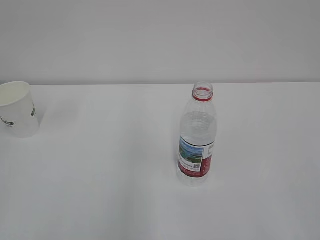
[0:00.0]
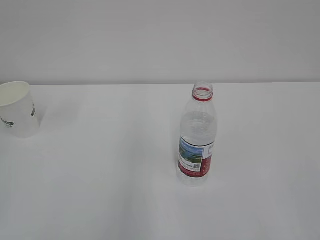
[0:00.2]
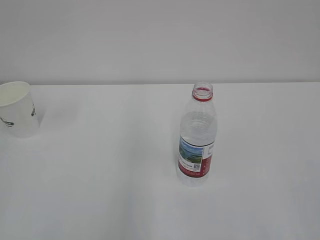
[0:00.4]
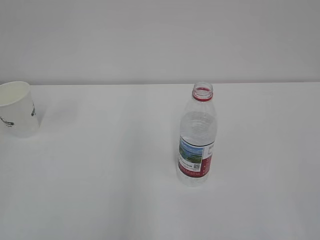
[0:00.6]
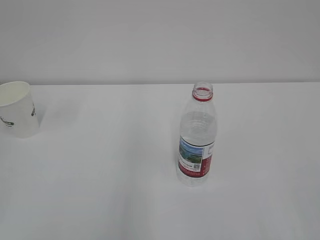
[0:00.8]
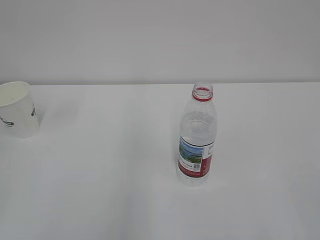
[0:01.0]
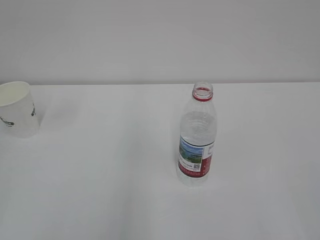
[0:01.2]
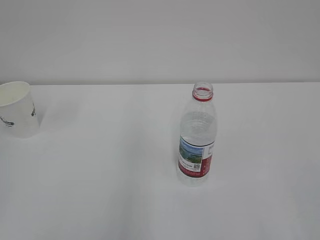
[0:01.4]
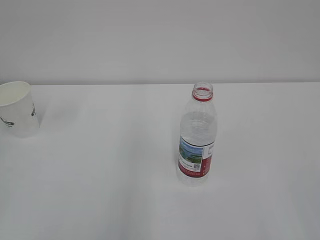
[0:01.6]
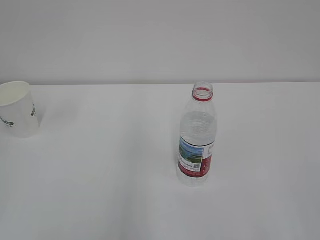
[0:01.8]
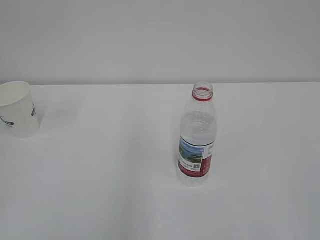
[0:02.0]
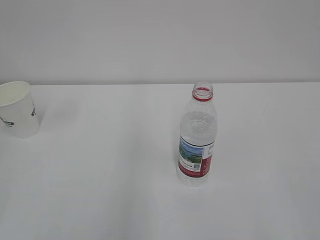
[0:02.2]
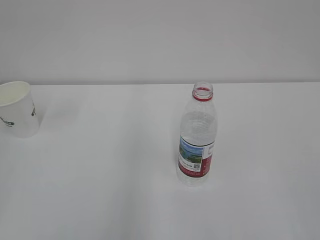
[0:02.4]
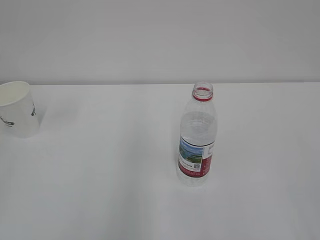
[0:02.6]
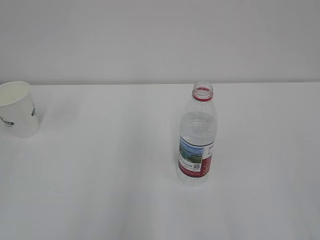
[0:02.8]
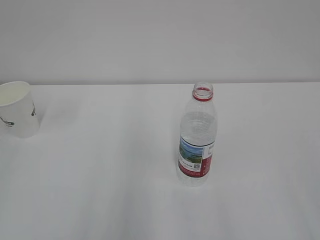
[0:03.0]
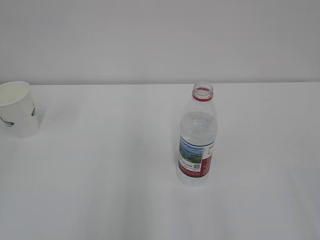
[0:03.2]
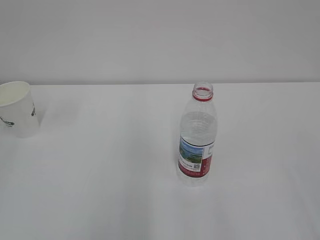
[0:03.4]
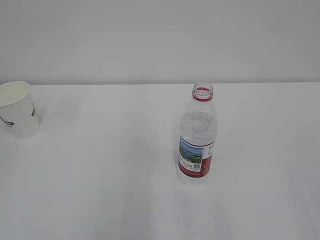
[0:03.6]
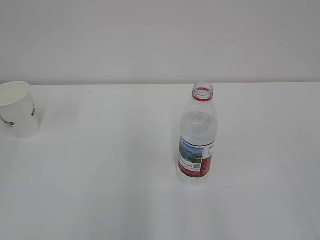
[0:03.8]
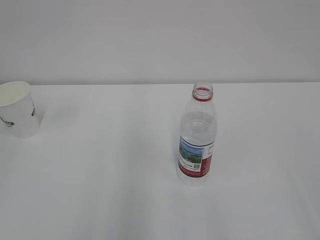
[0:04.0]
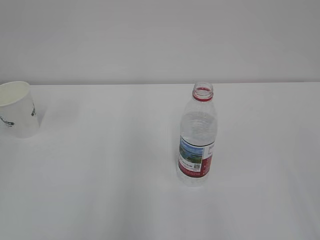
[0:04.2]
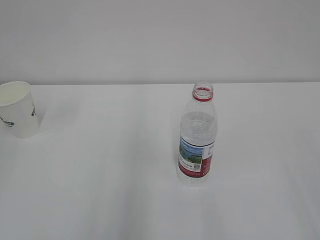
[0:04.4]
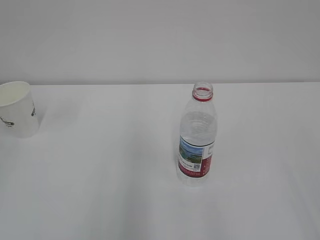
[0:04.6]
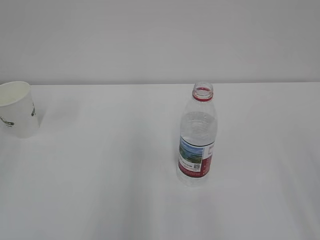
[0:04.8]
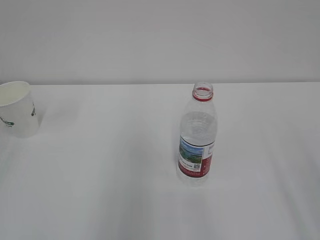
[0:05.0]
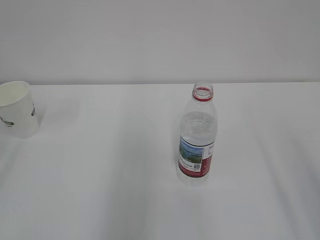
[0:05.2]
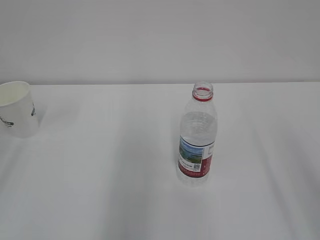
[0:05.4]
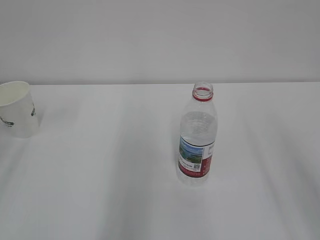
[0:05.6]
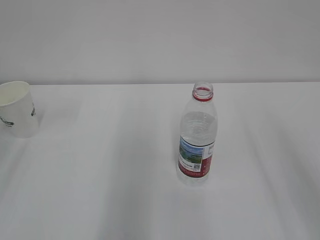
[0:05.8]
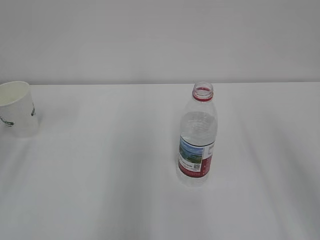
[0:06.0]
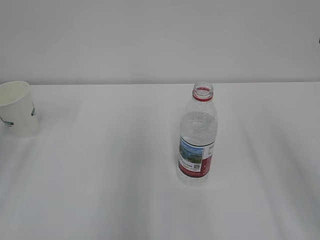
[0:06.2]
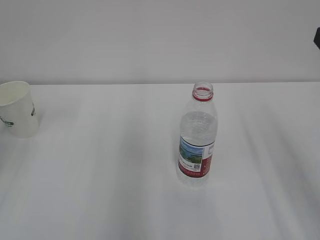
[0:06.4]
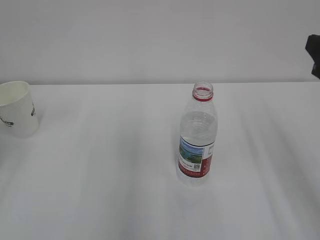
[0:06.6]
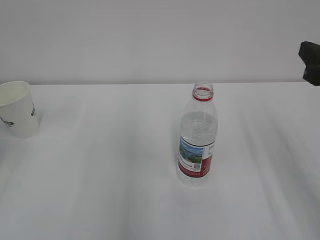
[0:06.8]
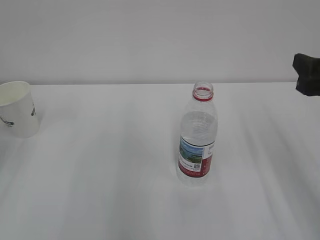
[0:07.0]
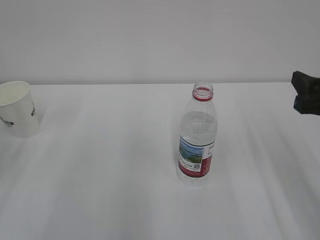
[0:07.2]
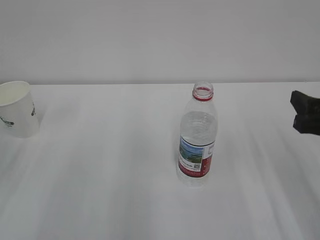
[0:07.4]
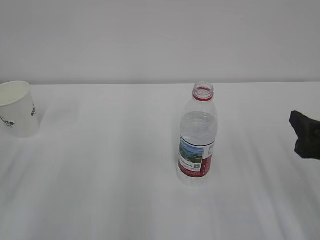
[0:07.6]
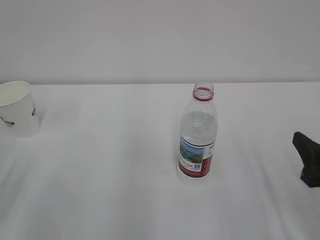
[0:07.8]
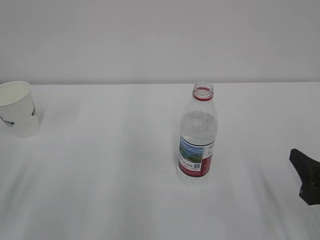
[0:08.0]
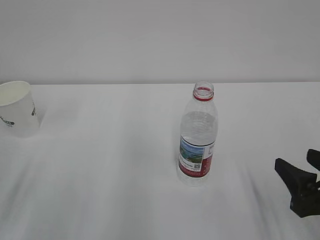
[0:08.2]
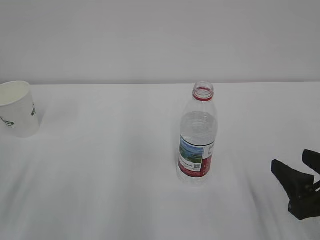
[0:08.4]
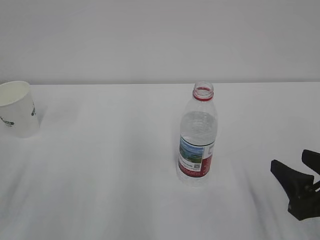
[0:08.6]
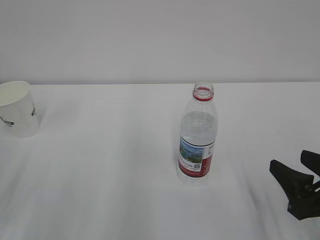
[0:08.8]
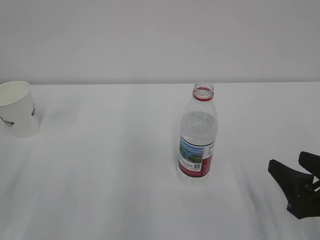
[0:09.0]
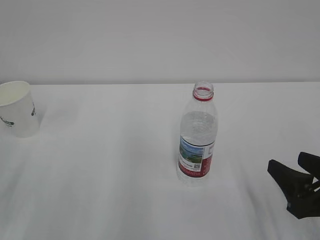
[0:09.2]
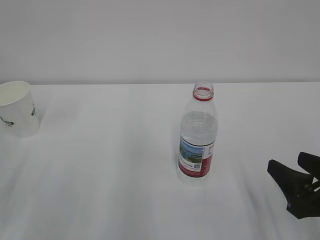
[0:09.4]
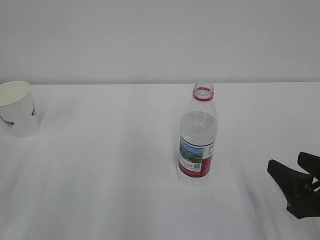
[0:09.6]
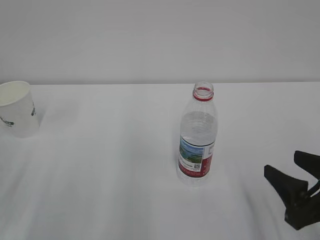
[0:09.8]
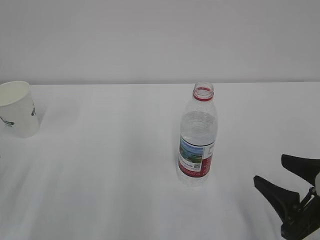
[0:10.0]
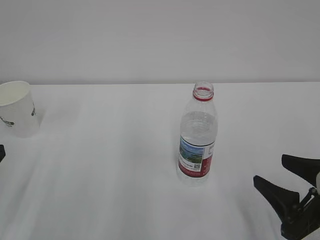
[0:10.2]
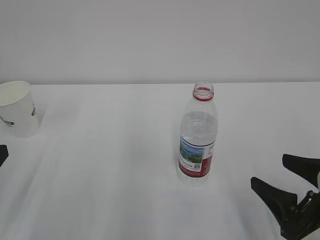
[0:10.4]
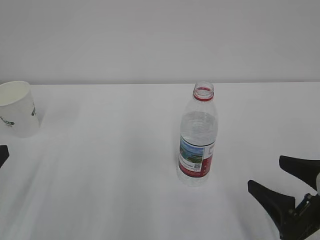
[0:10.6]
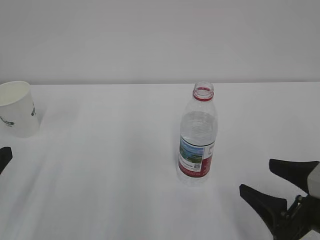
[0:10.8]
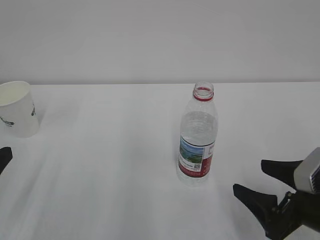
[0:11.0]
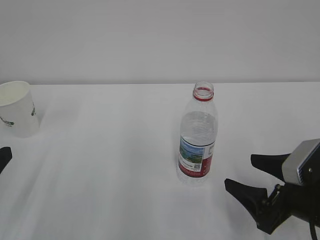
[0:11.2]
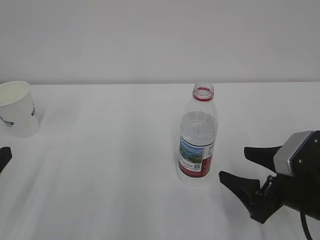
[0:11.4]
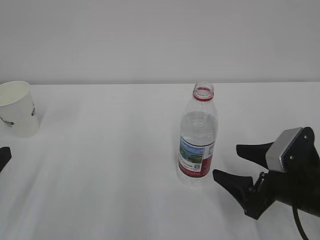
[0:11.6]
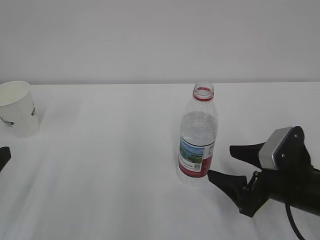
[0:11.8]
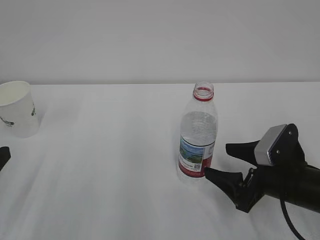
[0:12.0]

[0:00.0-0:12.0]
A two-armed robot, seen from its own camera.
0:06.0 to 0:07.6: The right gripper moves downward, about 15 cm.
0:07.6 to 0:09.0: The right gripper changes place by roughly 5 cm.
0:09.0 to 0:10.4: The right gripper opens its fingers.
0:10.4 to 0:12.0: The left gripper closes its fingers, while the right gripper travels forward by some 10 cm.

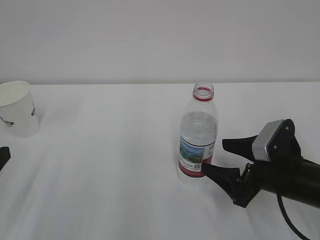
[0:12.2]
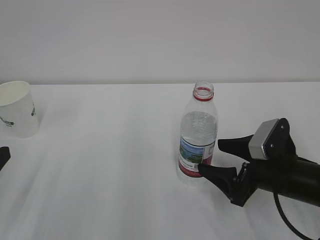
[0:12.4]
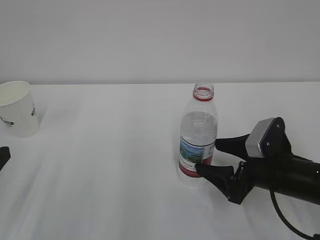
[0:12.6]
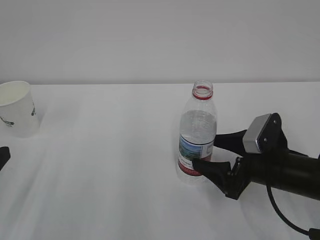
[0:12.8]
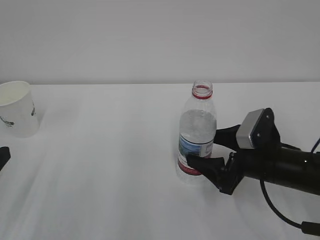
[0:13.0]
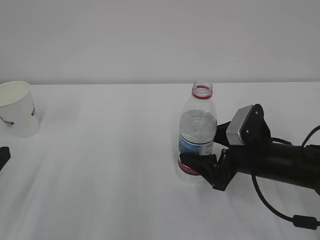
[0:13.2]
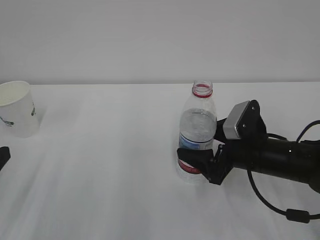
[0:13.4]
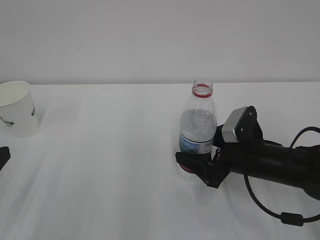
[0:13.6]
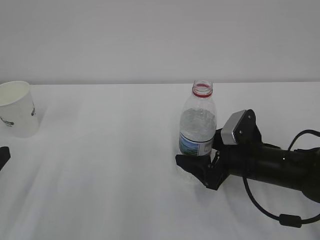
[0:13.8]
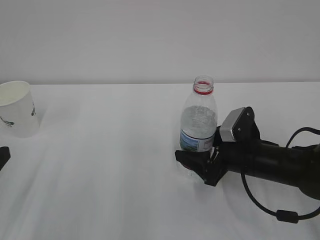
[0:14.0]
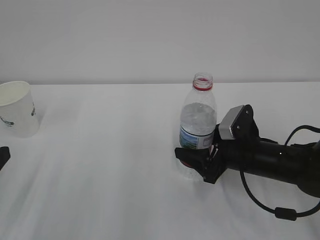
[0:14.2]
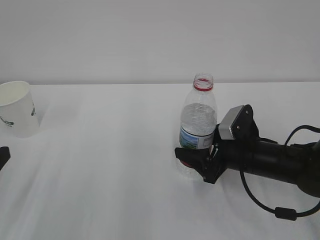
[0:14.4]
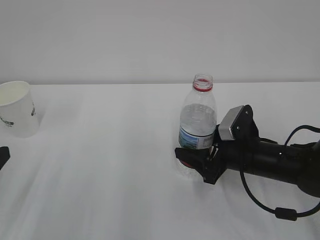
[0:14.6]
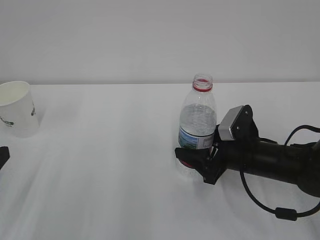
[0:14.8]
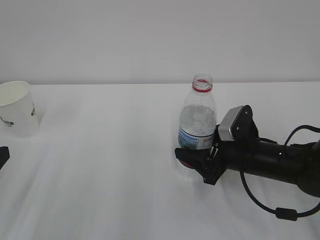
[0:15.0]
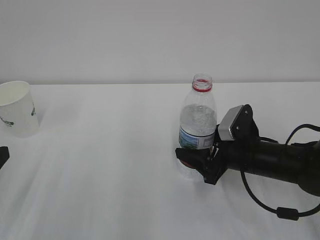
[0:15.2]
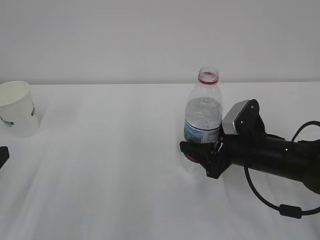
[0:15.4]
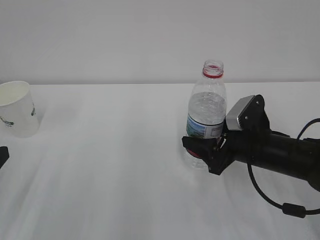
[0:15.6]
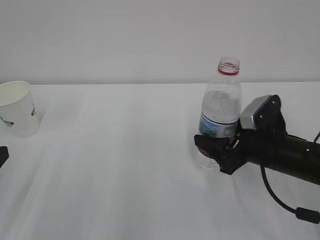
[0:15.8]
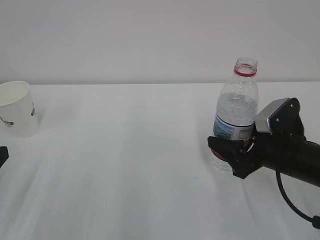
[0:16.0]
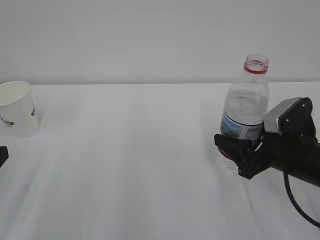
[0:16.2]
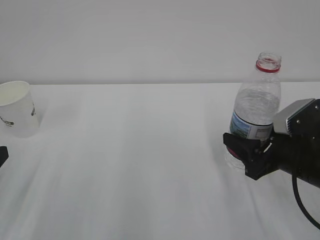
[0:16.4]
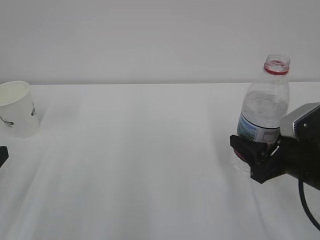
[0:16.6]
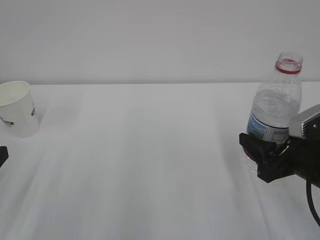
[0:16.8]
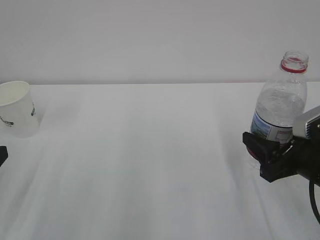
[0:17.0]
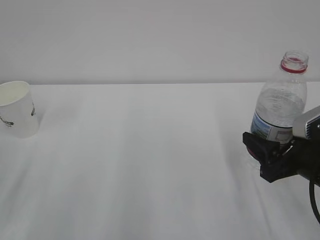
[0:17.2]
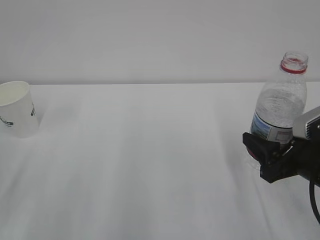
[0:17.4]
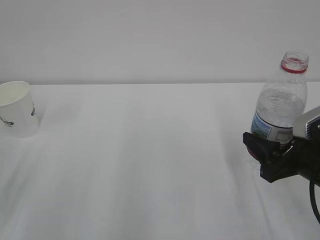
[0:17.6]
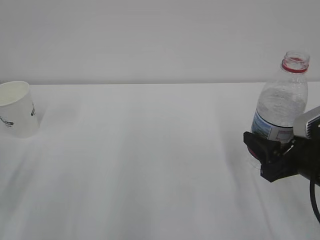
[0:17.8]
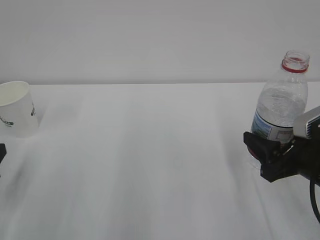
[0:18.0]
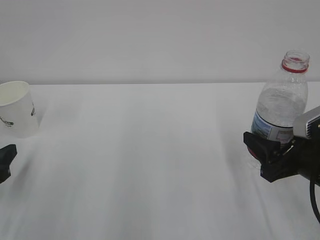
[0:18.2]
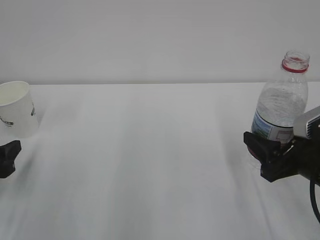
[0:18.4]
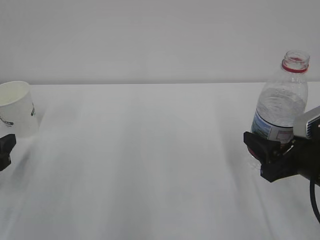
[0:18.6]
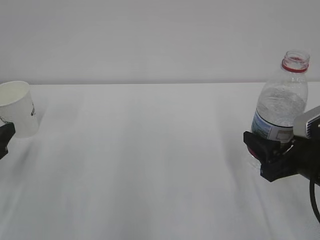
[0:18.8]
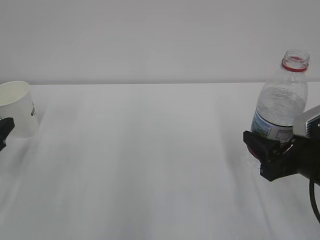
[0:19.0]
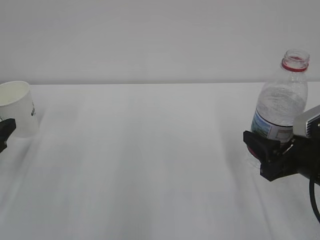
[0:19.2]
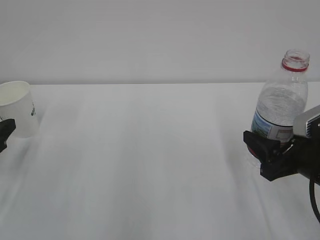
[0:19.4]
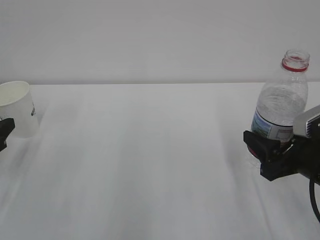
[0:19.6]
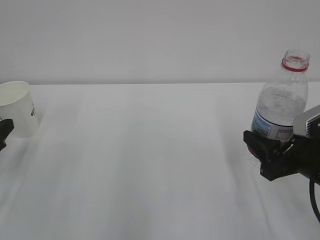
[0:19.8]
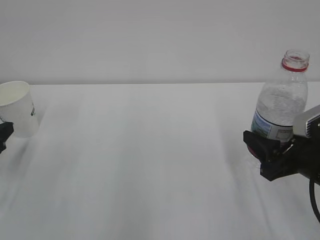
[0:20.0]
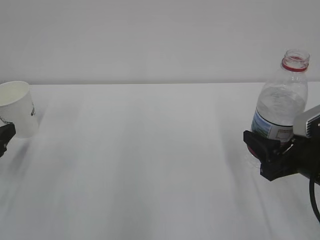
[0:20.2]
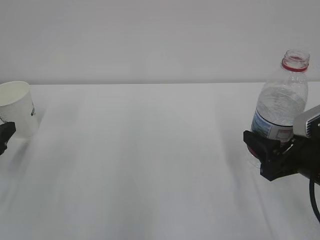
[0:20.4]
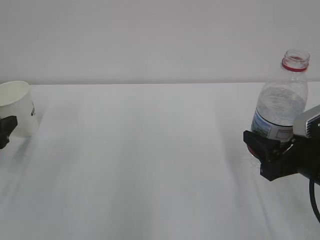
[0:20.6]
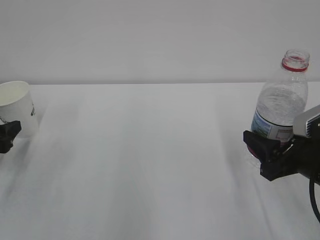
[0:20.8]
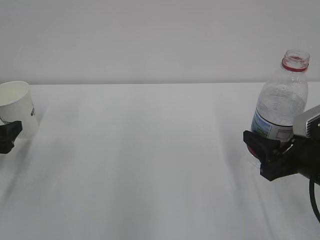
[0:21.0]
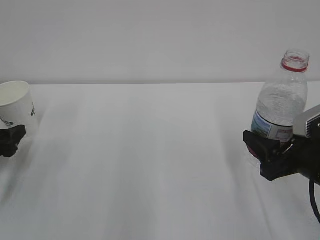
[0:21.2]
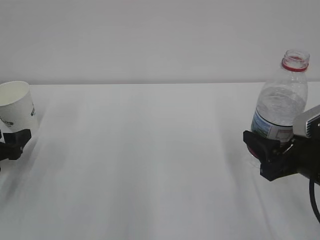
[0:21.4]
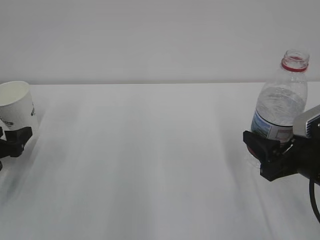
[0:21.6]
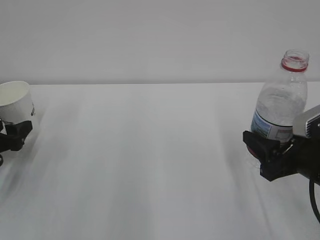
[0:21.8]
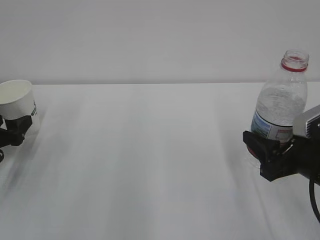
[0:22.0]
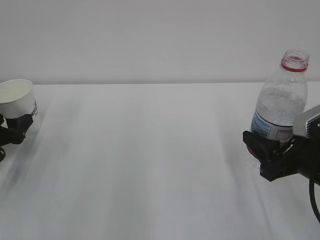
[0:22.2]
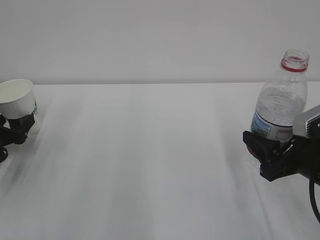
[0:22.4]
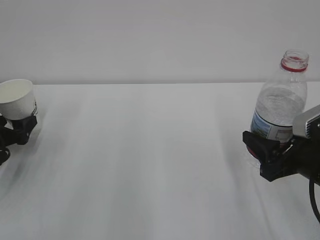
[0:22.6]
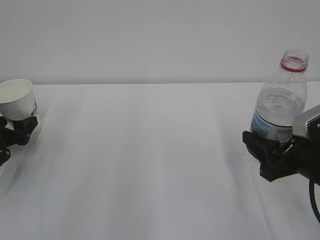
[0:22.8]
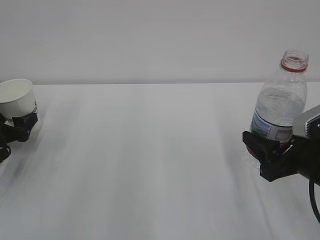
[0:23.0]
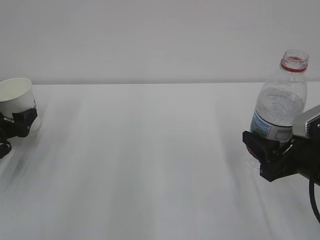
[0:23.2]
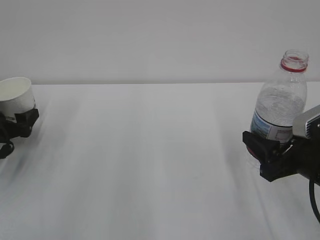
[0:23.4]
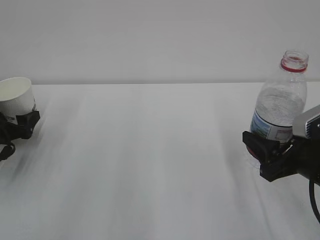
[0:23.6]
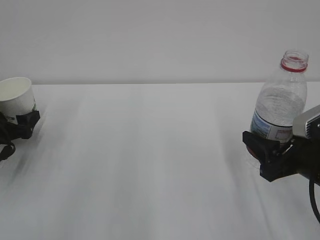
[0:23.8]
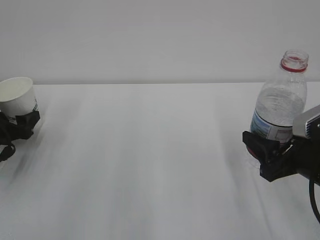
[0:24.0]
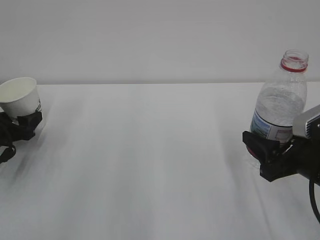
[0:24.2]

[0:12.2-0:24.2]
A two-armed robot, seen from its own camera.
0:12.2 to 0:13.8: The right gripper ends up roughly 5 cm from where it was.
0:13.8 to 0:15.2: The right gripper closes.
0:15.2 to 0:16.6: The right gripper travels backward, to the right and upward by approximately 10 cm.
0:16.6 to 0:18.2: The left gripper shifts by roughly 5 cm.
0:18.2 to 0:19.8: The left gripper heads forward, covering approximately 5 cm.
0:19.8 to 0:21.2: The left gripper opens.
0:21.2 to 0:22.6: The left gripper moves approximately 5 cm.
0:22.6 to 0:24.2: The left gripper closes up.
